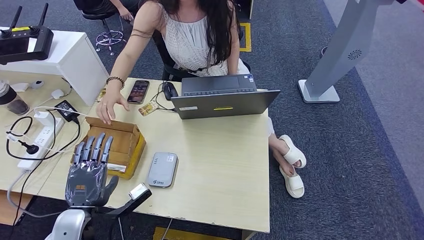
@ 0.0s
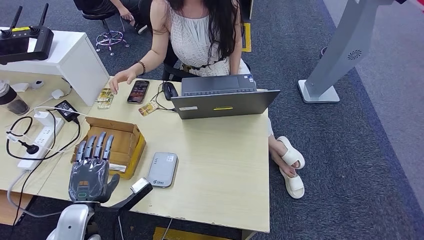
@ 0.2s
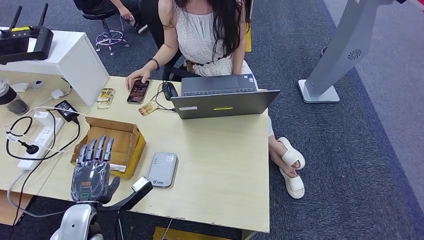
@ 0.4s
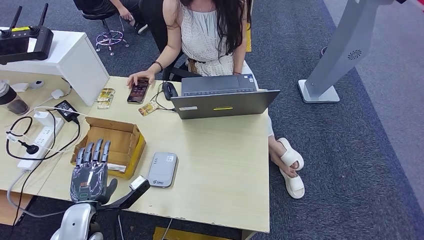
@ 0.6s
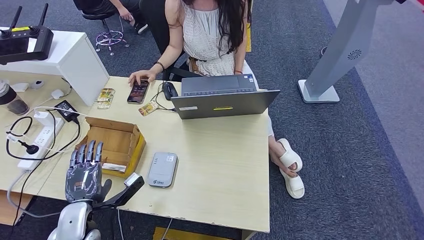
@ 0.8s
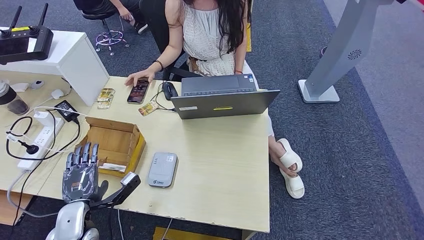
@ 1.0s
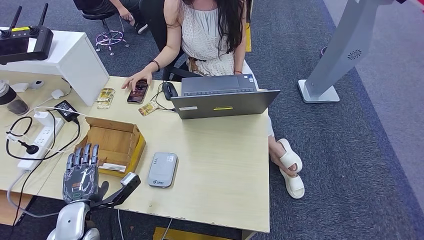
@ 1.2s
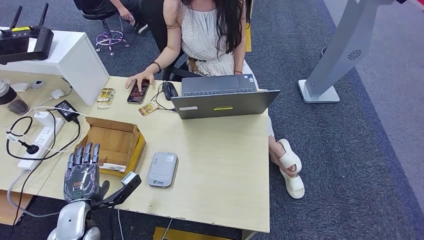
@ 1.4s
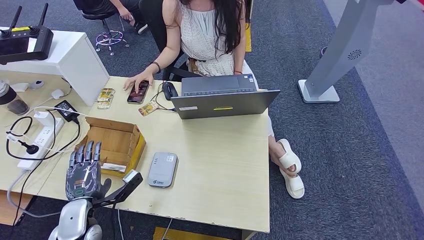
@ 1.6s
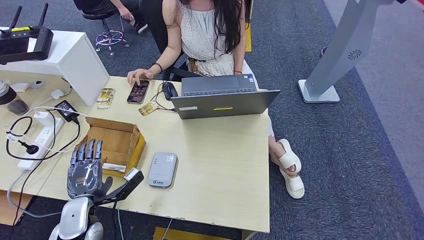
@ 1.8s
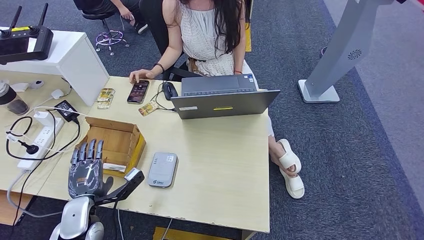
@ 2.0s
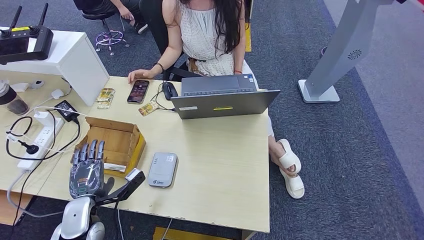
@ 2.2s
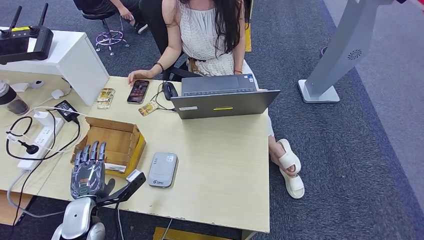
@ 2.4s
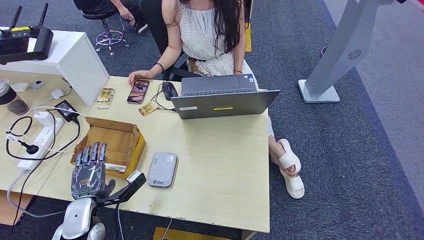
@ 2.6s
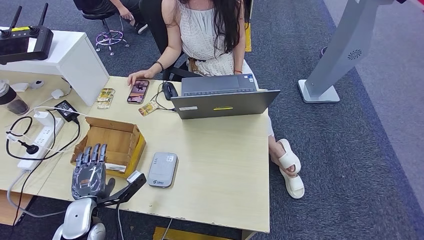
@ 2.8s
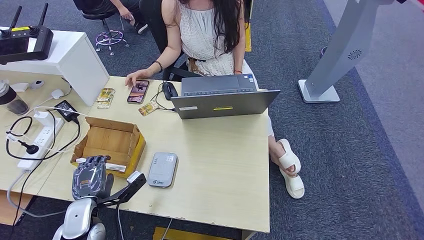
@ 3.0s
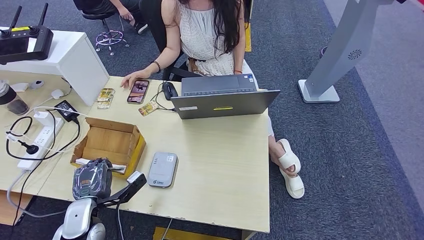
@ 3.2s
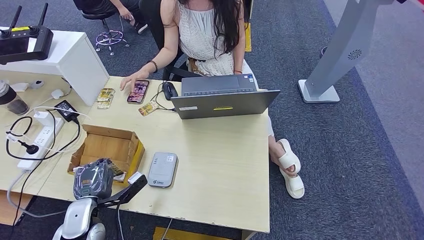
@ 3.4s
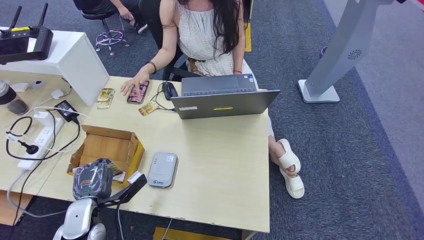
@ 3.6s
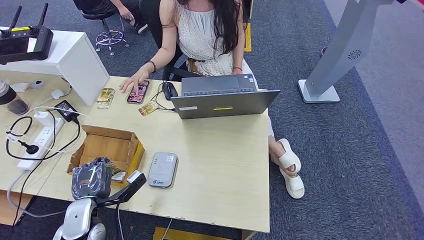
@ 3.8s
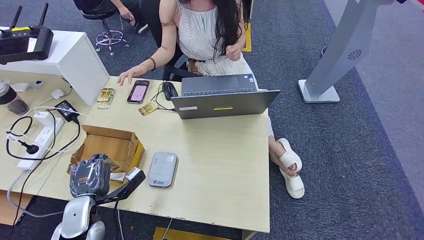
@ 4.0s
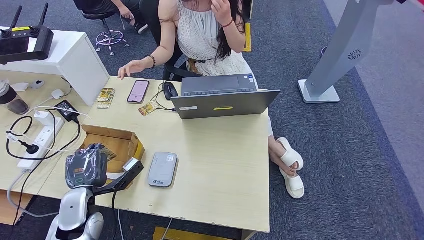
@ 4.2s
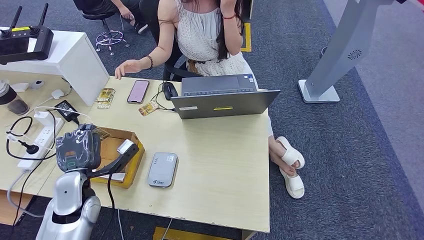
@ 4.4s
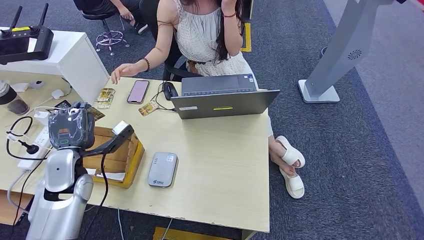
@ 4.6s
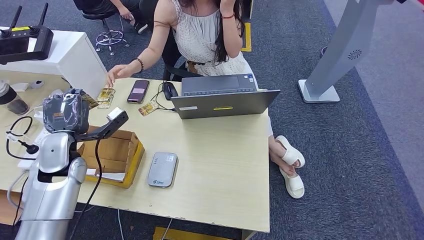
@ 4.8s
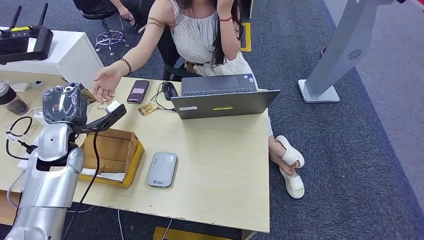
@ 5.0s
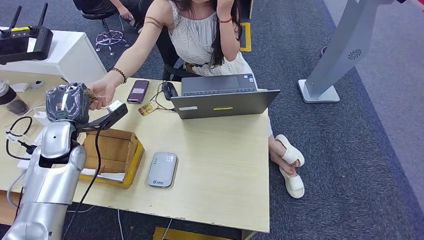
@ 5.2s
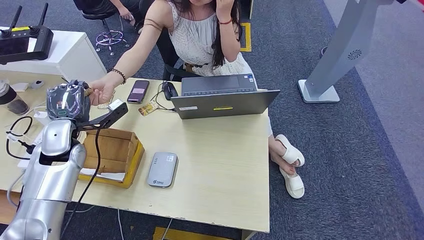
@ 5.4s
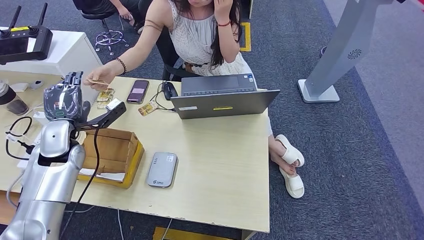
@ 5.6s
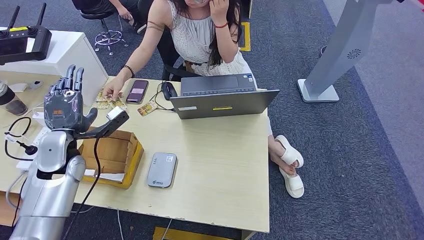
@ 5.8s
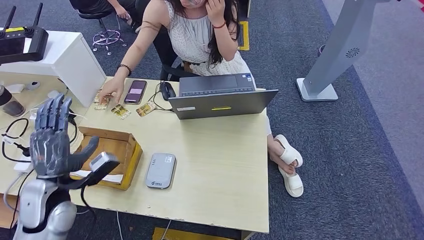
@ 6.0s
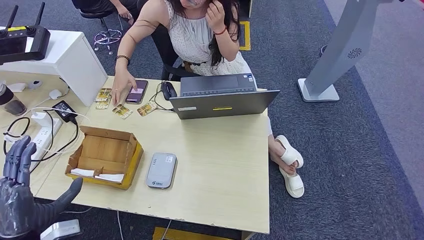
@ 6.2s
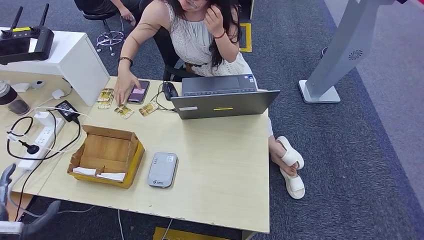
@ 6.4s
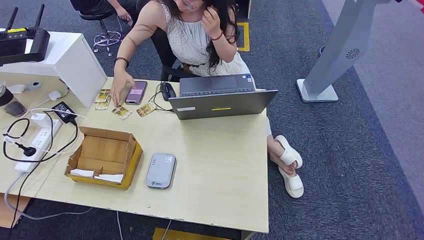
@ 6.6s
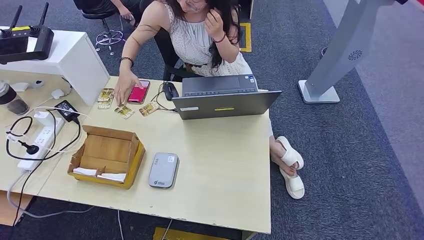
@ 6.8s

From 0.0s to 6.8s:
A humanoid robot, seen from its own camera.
Step, from 0.0s to 4.2s: Pick up the room key from the key card box.
Step, from 4.4s to 6.6s: Hand the room key to the person.
From 0.0s to 1.4s: The hands stay close to where they were, moving slightly.
From 1.4s to 2.8s: The two hands keep their place.
From 2.8s to 4.0s: Neither hand changes place.
From 4.0s to 5.4s: The left hand moves forward and upward, roughly 20 cm.
From 5.4s to 6.8s: The left hand goes about 50 cm backward and downward.
